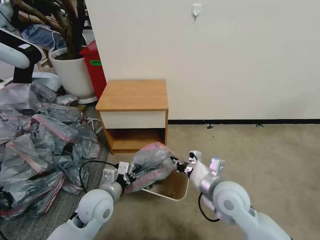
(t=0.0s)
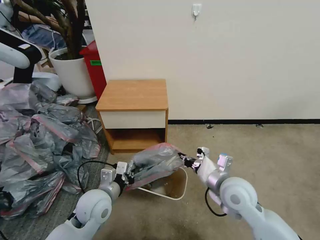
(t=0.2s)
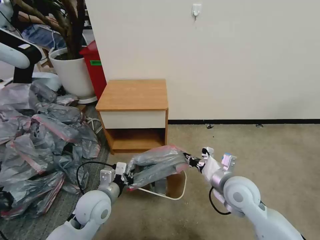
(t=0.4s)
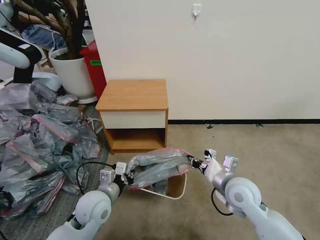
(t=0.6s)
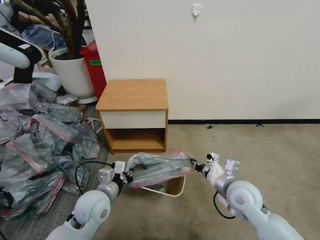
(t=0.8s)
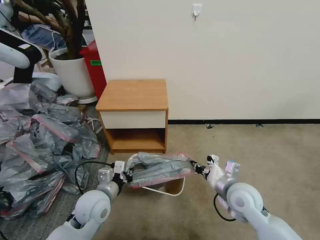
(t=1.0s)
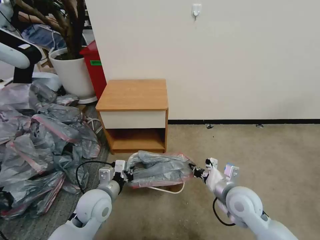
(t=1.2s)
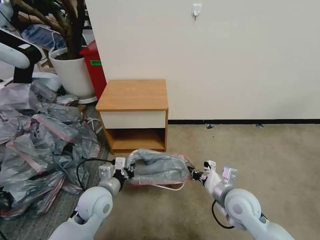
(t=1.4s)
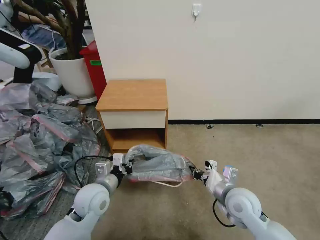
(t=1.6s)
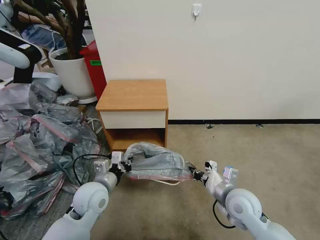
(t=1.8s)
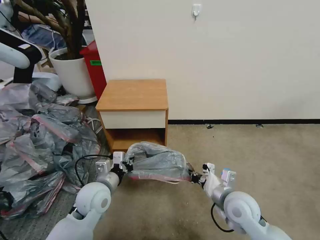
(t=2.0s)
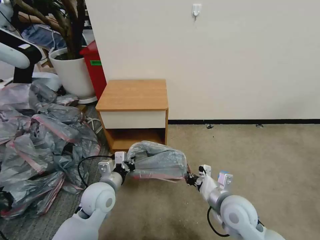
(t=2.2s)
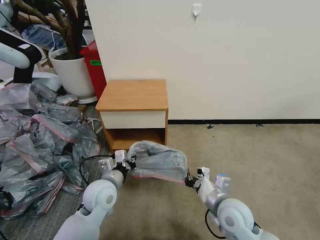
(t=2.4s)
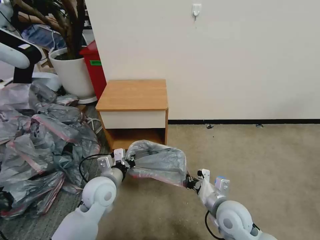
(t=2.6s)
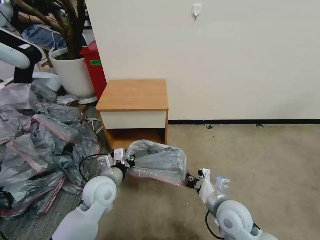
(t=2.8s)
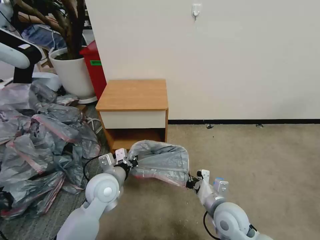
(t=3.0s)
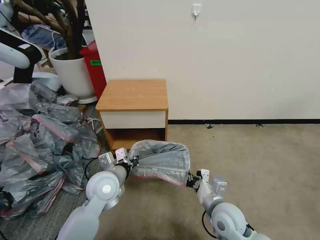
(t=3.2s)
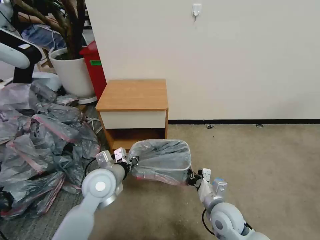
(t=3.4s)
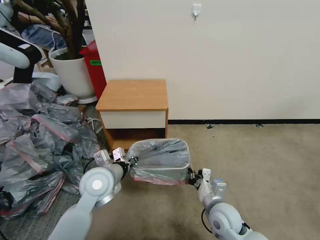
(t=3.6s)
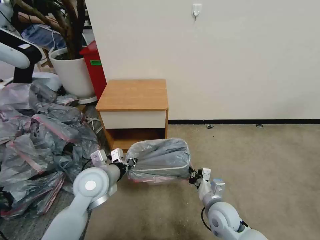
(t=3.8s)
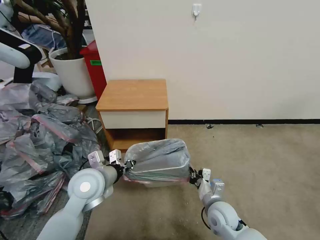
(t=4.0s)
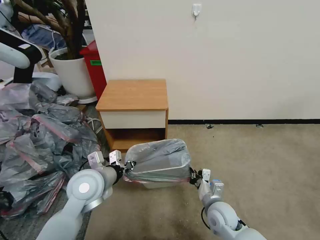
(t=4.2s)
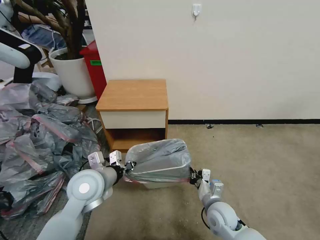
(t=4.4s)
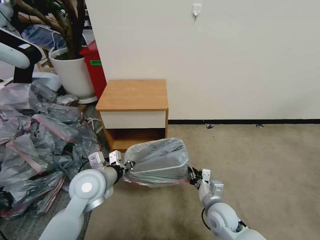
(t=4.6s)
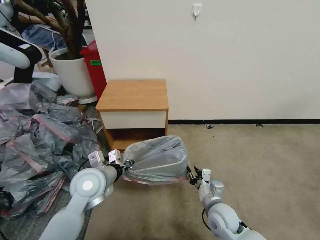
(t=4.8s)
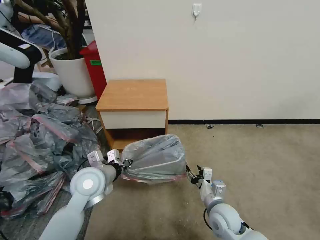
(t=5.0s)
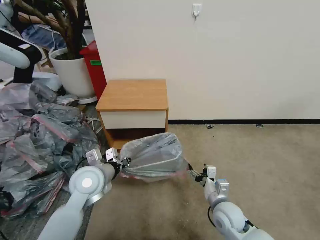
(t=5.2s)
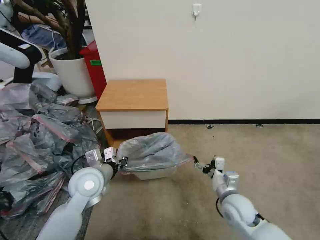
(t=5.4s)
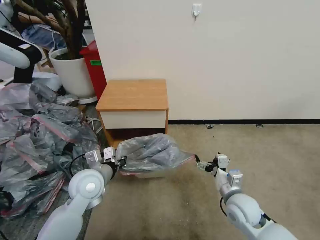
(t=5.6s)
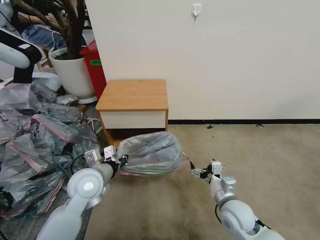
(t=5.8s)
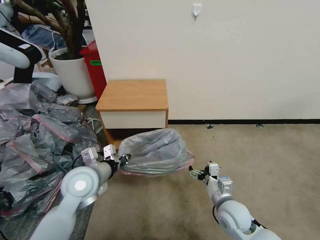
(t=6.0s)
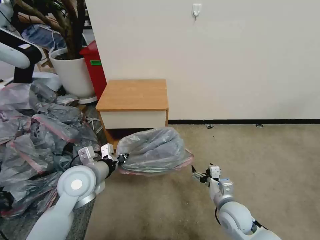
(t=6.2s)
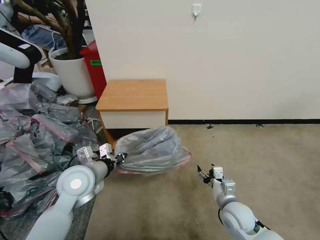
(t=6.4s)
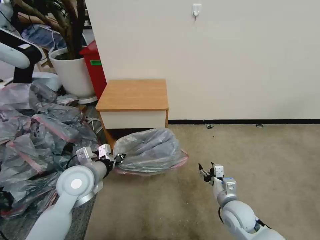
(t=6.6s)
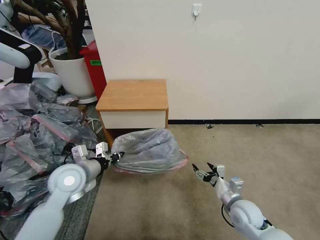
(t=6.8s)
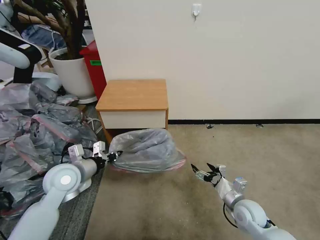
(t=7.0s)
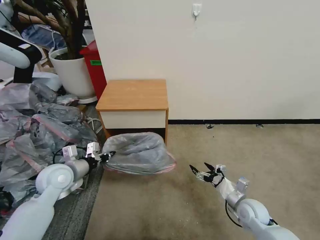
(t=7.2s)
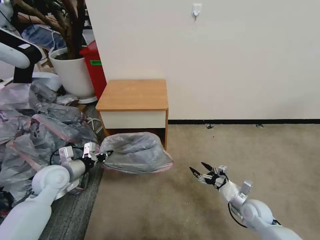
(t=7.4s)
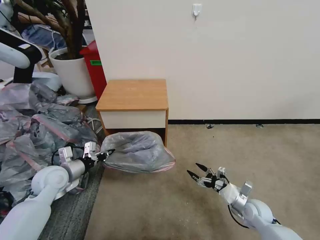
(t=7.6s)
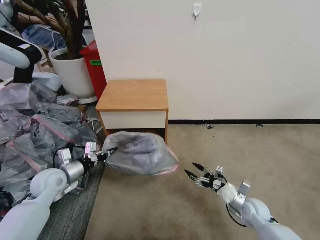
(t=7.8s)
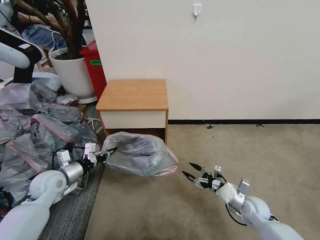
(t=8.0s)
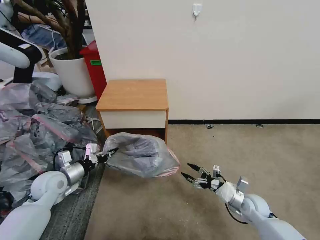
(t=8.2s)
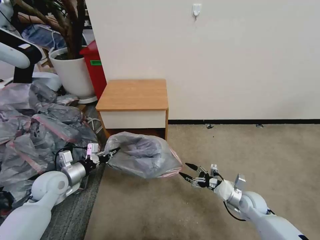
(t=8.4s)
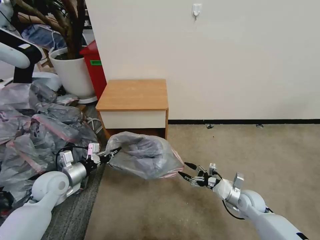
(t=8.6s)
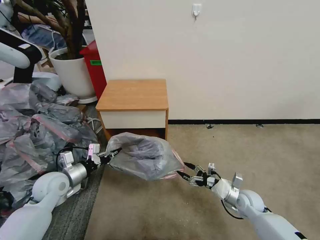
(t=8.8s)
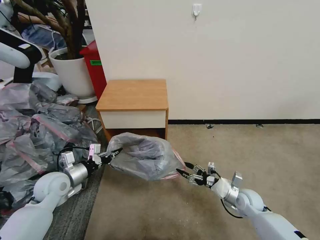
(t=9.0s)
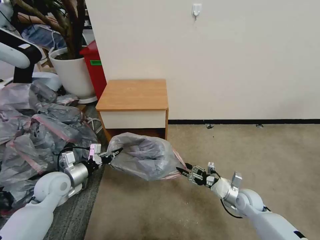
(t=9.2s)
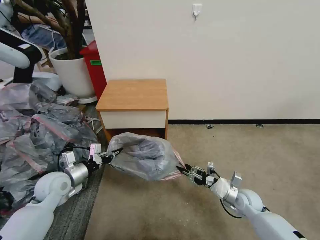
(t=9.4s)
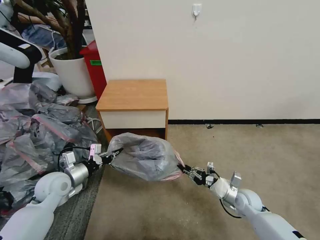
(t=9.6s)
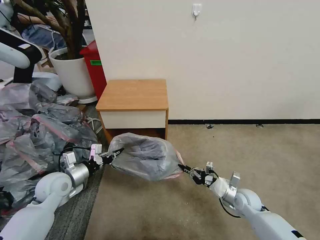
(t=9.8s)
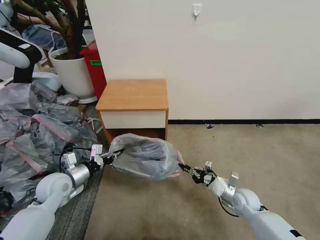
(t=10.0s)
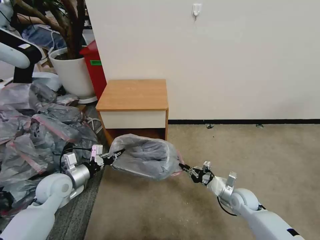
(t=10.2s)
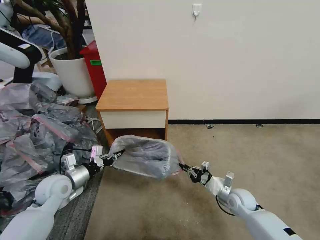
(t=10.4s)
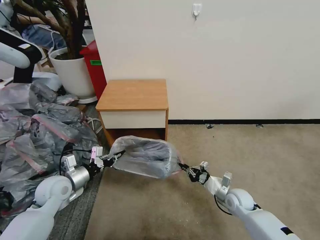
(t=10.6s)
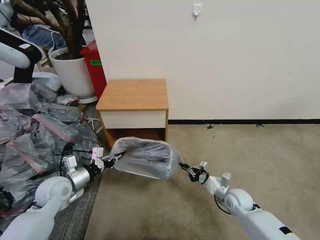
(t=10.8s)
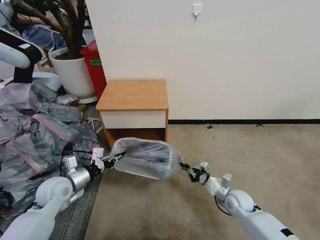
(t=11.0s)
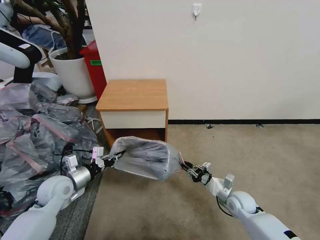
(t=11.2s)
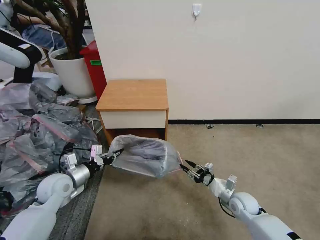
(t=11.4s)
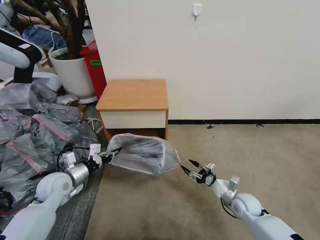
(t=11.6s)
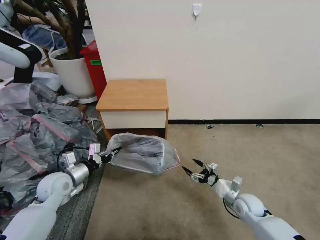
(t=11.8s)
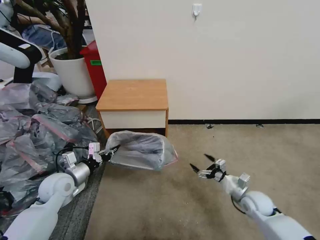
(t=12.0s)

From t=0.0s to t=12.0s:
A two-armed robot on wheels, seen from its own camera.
Task of the whole recording: Pick up the garbage bag from the table and place it over the trash can.
From t=0.0s to t=1.6s: The right gripper ends up roughly 5 cm from where it was.
From t=1.6s to t=3.0s: The right gripper moves about 5 cm.
From t=3.0s to t=4.4s: The left gripper moves some 5 cm. The right gripper heads downward, covering about 10 cm.
From t=4.4s to t=6.0s: The right gripper opens.
From t=6.0s to t=7.6s: The left gripper travels to the left by some 15 cm; the right gripper travels to the right and downward by roughly 15 cm, and closes, then reopens.
From t=7.6s to t=9.0s: The grippers stay close to where they were, moving slightly.
From t=9.0s to t=10.4s: The right gripper closes up.
From t=10.4s to t=12.0s: The right gripper shifts by roughly 5 cm, and opens its fingers.

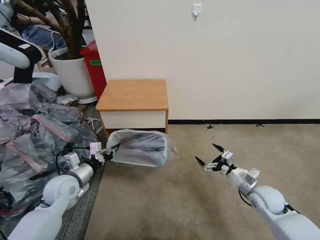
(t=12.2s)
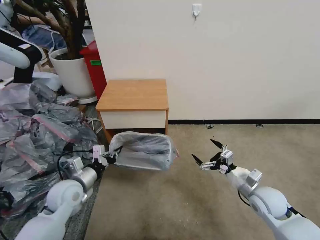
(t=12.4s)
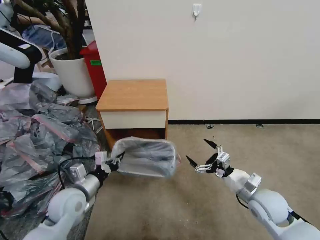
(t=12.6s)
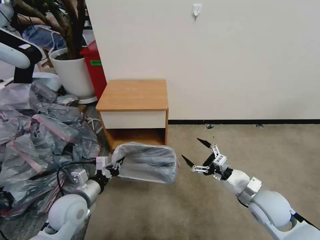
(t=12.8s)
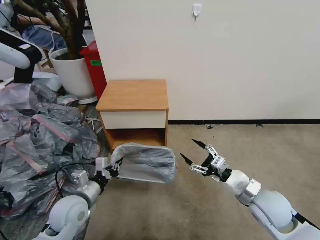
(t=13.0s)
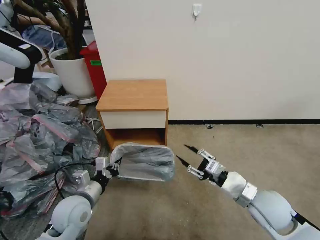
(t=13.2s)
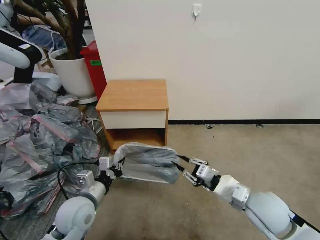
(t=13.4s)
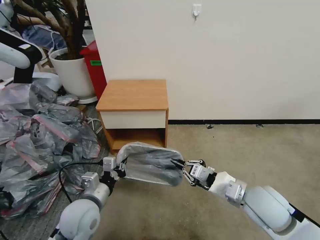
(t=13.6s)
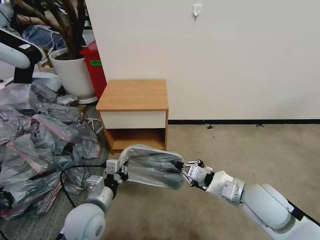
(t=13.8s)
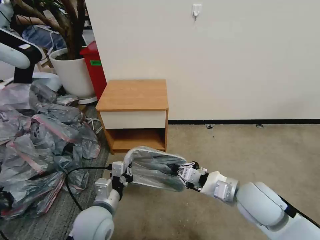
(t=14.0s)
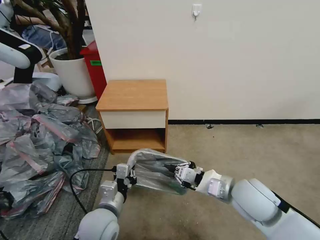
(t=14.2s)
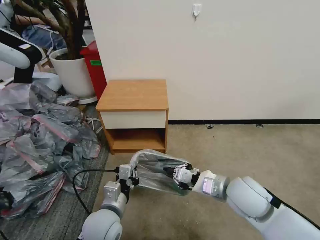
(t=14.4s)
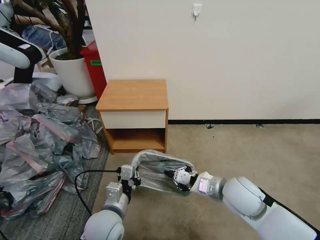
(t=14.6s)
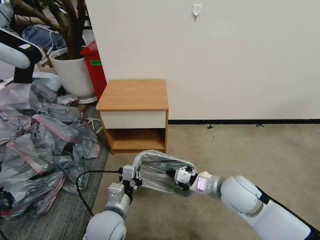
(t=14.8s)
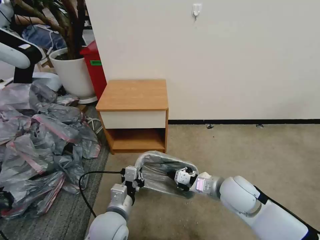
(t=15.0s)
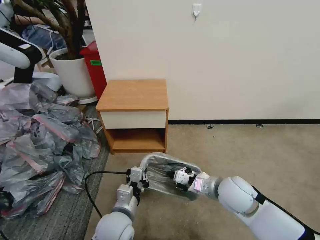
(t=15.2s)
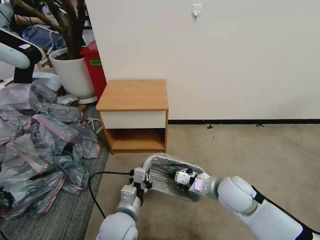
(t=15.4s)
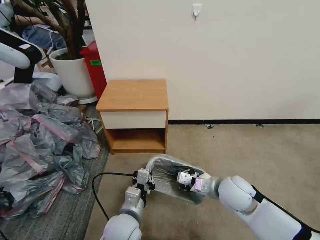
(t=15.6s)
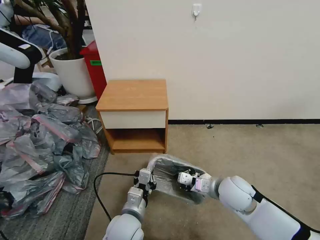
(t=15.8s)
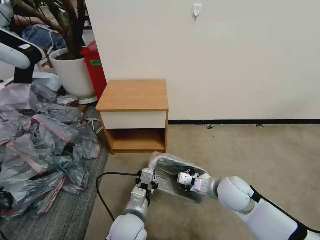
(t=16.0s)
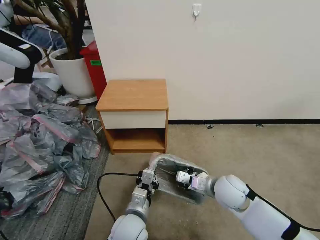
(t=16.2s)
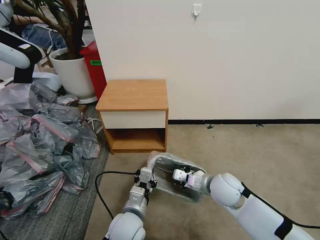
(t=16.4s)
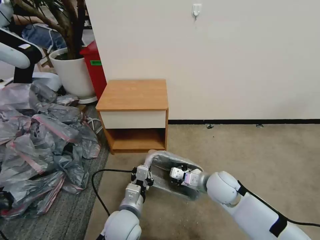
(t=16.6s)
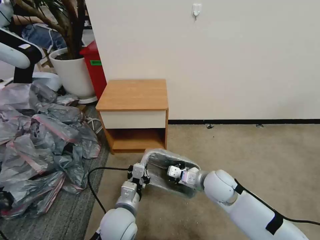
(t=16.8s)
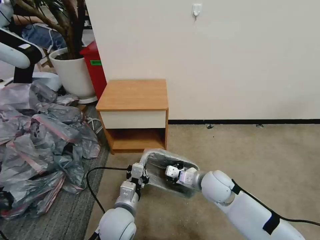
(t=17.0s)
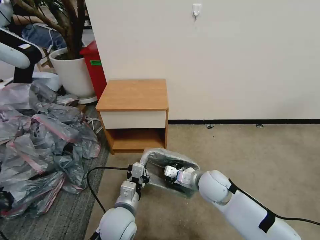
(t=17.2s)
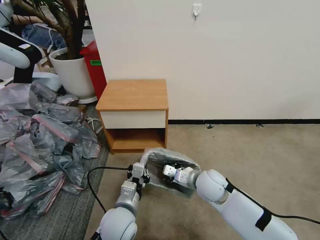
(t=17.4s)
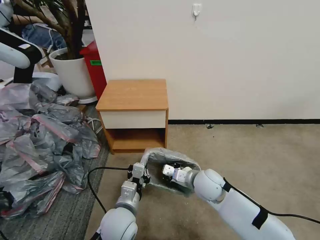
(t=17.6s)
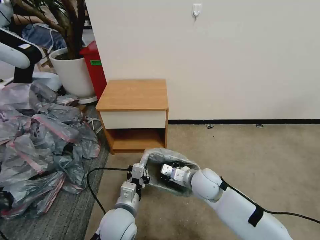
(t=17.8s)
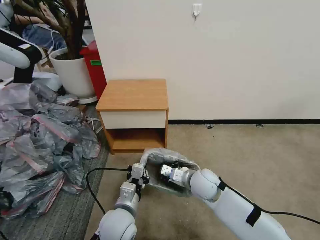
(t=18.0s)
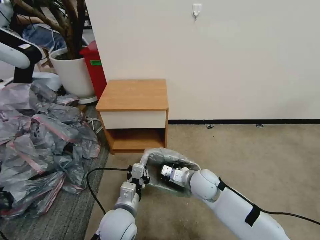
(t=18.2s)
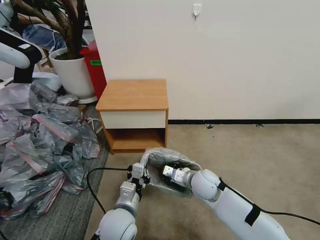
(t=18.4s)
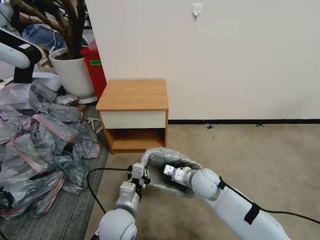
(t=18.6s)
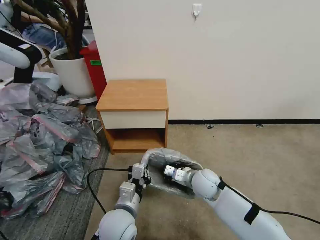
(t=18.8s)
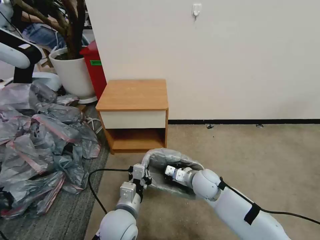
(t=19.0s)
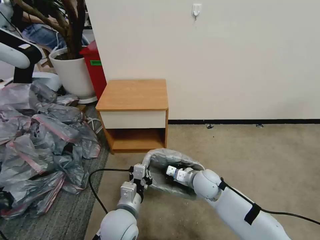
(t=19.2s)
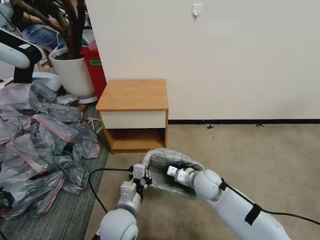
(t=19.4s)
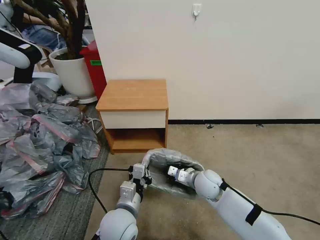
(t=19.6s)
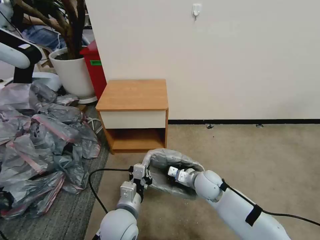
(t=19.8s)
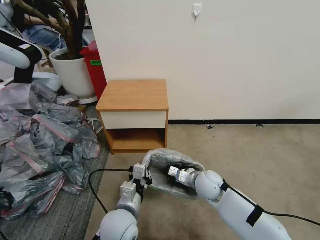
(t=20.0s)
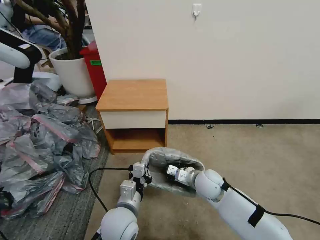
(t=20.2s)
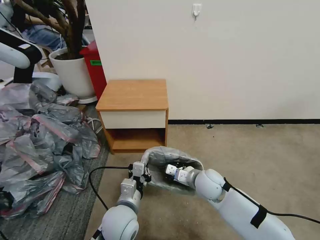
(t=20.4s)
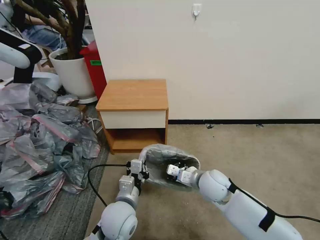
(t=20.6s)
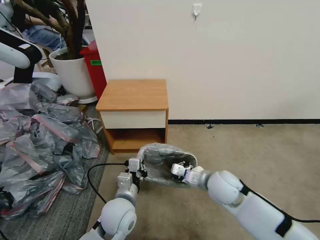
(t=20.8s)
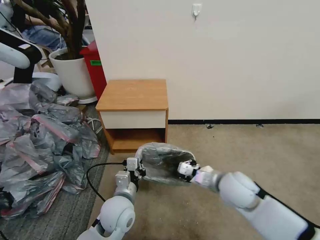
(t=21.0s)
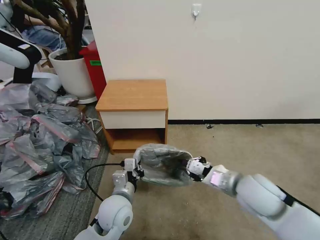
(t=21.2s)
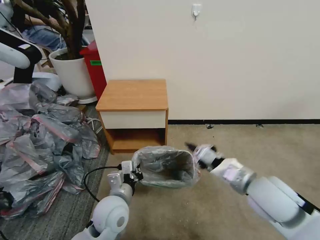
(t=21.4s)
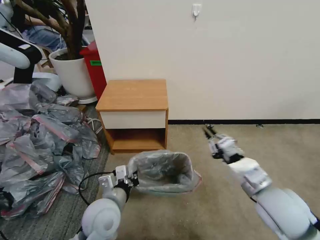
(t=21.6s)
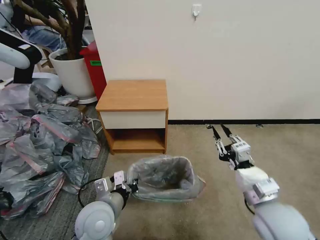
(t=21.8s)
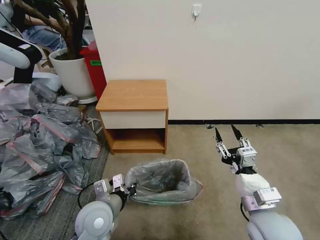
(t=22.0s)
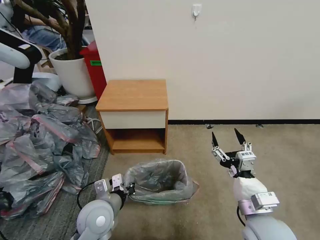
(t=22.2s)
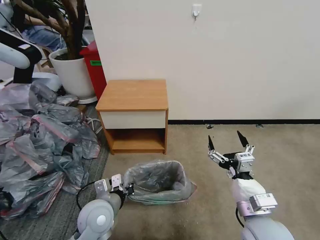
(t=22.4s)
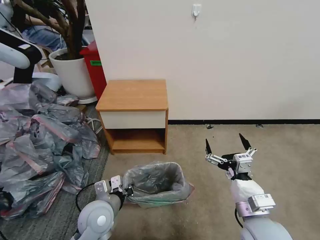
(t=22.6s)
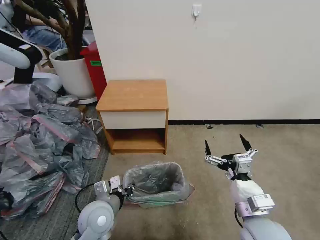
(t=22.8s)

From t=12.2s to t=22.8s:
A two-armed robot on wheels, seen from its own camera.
Task of the whole recording: Pick up the garbage bag from the table and place it over the trash can.
From t=12.2s to t=13.8s: The left gripper moves to the right and backward, roughly 15 cm, while the right gripper is displaced upward and to the left by about 20 cm, and closes.
From t=13.8s to t=15.2s: The left gripper heads to the right, covering about 5 cm; the right gripper ends up about 5 cm from where it was.
From t=15.2s to t=16.8s: The right gripper ends up some 5 cm from where it was.
From t=16.8s to t=18.2s: The right gripper moves about 5 cm.
From t=18.2s to t=19.8s: There are only small adjustments of the grippers.
From t=19.8s to t=21.2s: The right gripper travels upward, to the right and backward by approximately 20 cm.
From t=21.2s to t=22.8s: The right gripper shifts some 10 cm backward, and opens up, while the left gripper heads to the left, covering approximately 5 cm.
